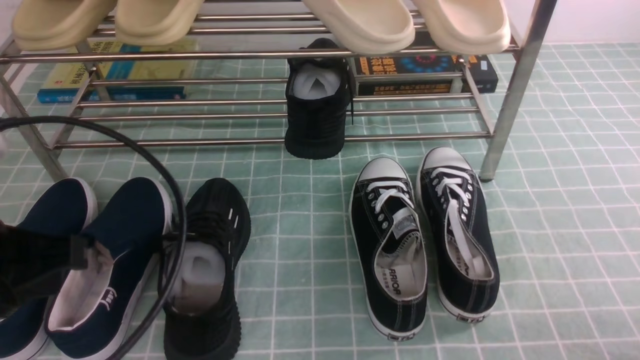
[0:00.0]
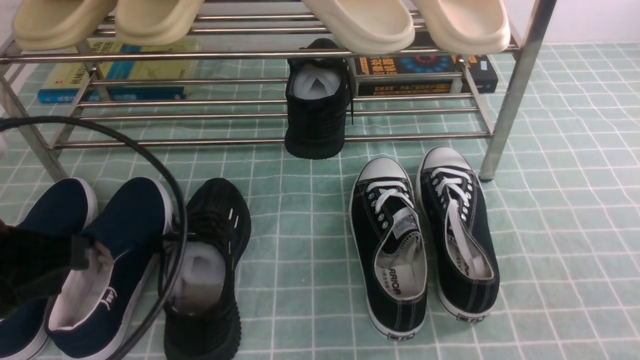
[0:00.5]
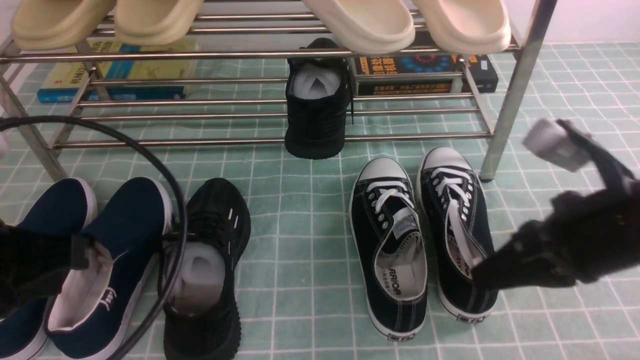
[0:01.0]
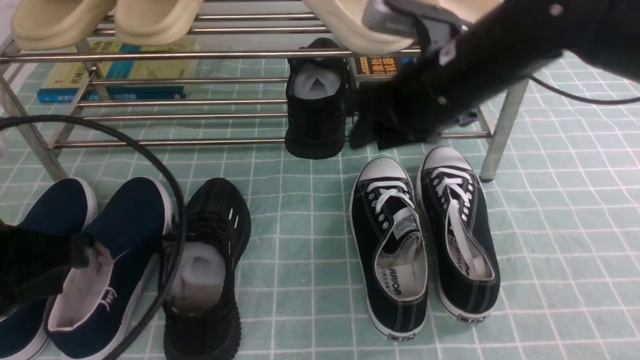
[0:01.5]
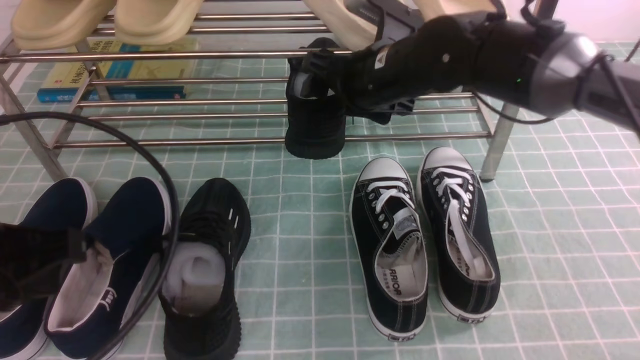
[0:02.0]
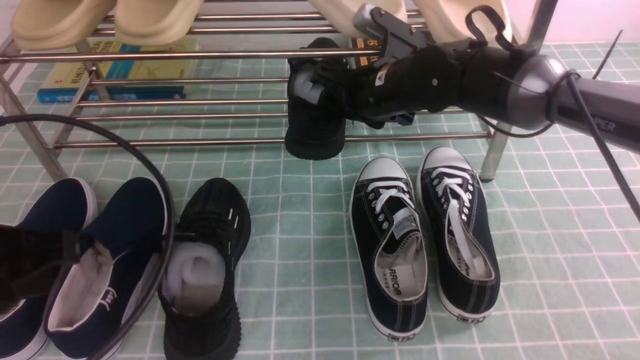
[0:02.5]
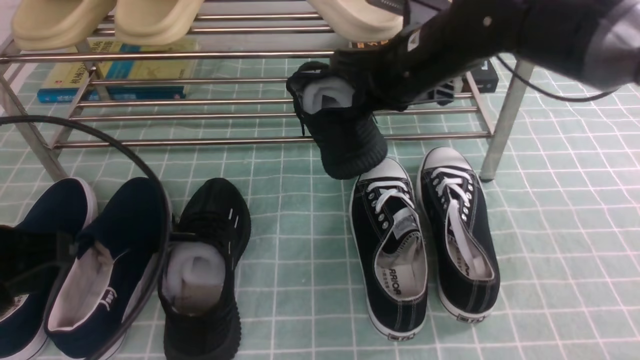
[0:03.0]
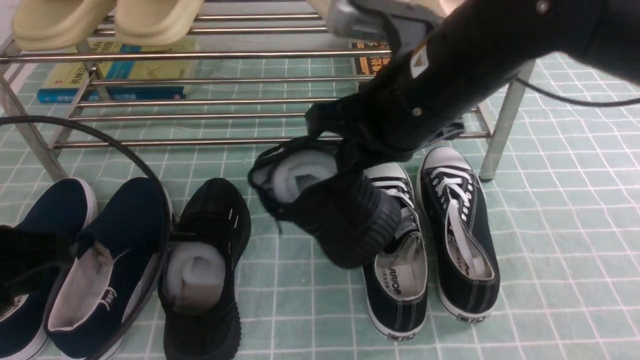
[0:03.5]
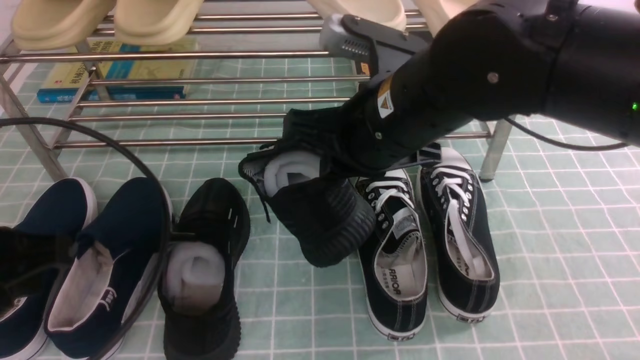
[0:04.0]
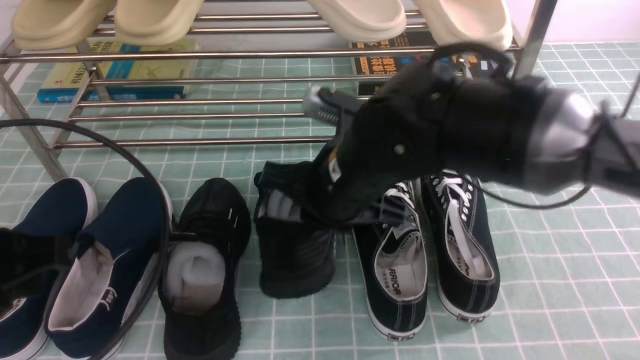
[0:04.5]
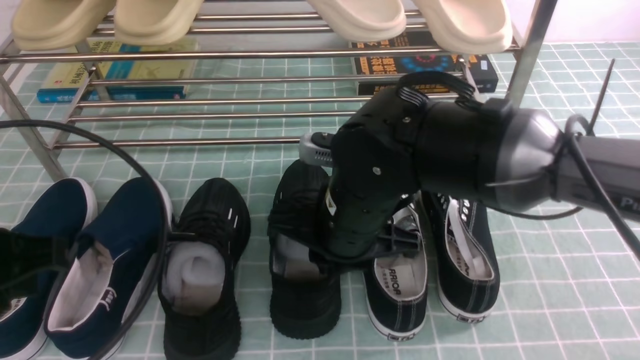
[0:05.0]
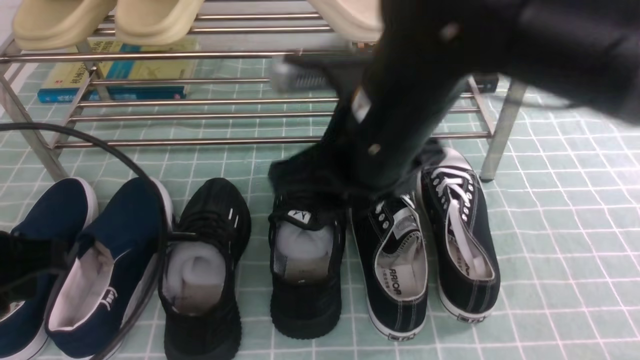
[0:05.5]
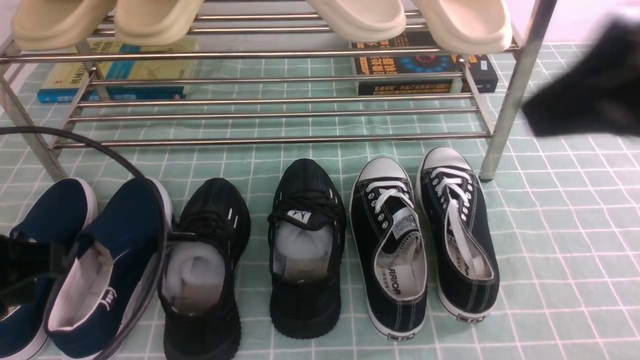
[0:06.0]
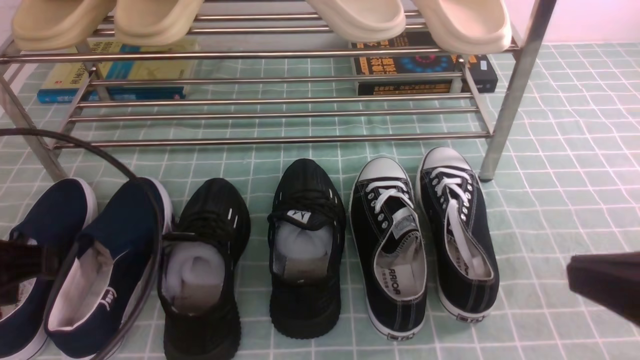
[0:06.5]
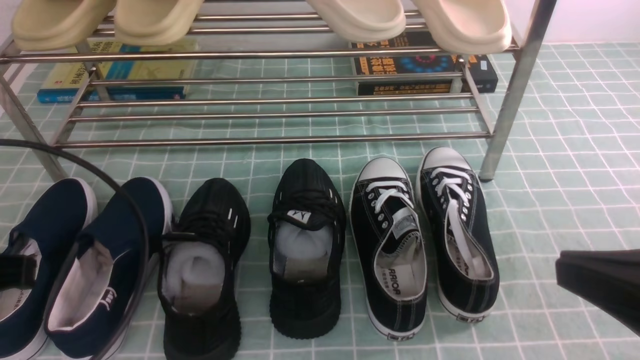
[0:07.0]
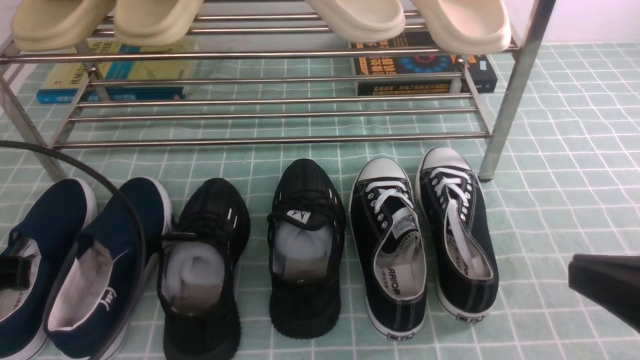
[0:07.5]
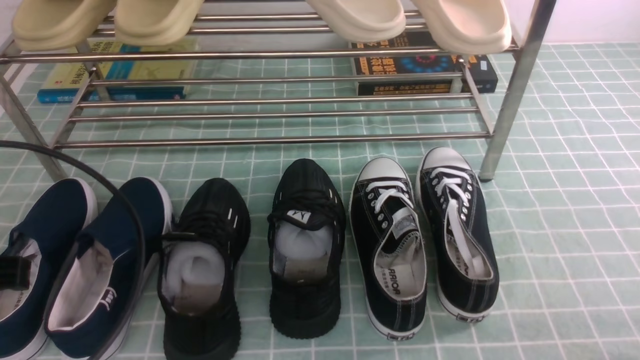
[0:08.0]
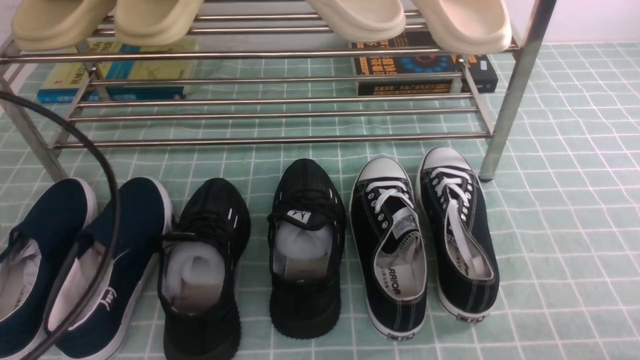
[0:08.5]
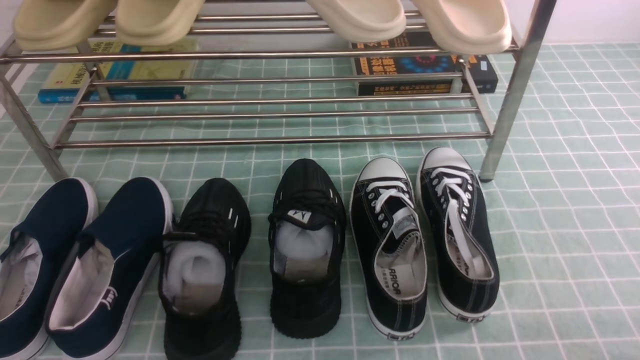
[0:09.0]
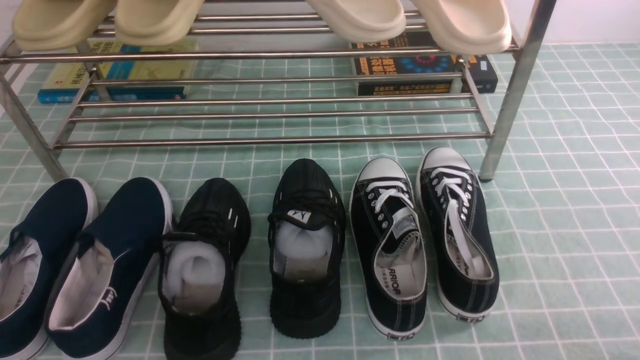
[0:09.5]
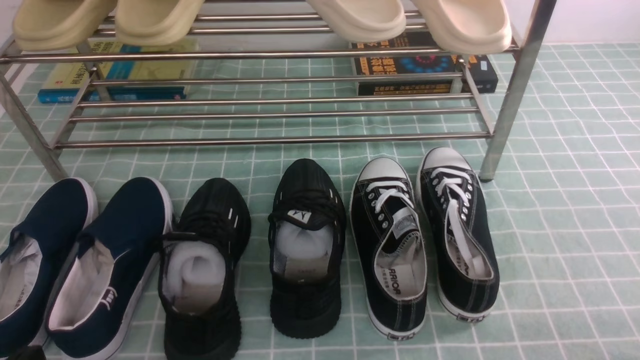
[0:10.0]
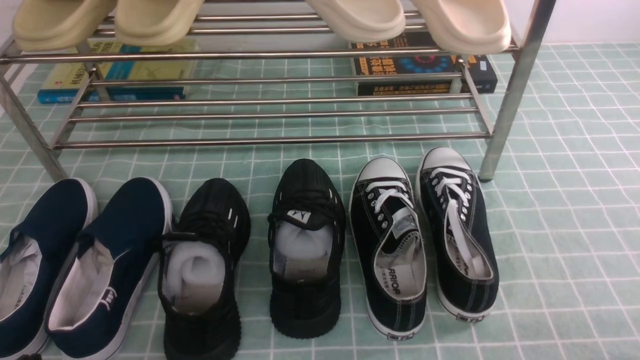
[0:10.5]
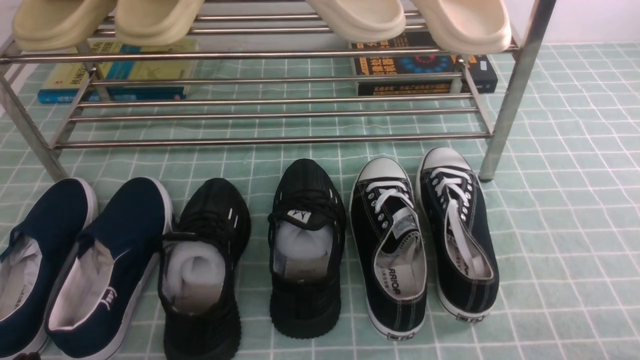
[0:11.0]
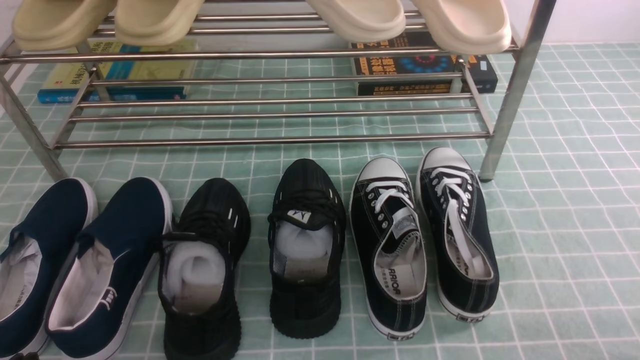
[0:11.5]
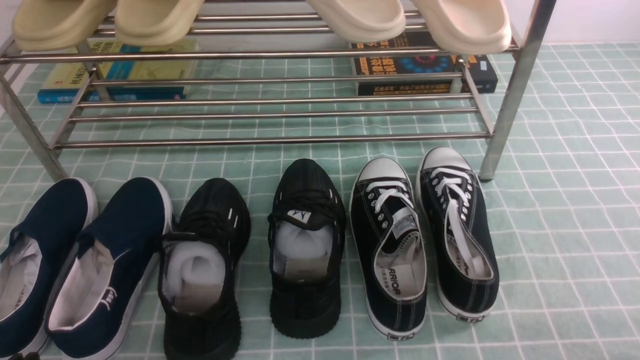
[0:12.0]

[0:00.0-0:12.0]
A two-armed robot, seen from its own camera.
Step, 0:00.0 to 0:02.5: use the right arm to clamp a shoe in the middle of the shoe rack.
Step, 0:03.0 to 0:05.5: use the right arm to take out the clamped shoe from the shoe rack and put it down.
0:00.0 to 0:02.0: The right gripper is displaced forward and to the left by approximately 40 cm, and opens up.
0:02.0 to 0:04.0: The right gripper travels backward by roughly 15 cm, and closes.
0:04.0 to 0:06.0: The right gripper shifts roughly 25 cm backward, upward and to the right, and opens, then closes again.
0:06.0 to 0:08.0: The left gripper closes its fingers; the right gripper shifts some 30 cm downward and to the right.
0:08.0 to 0:10.0: The left gripper shifts approximately 15 cm downward and backward.
